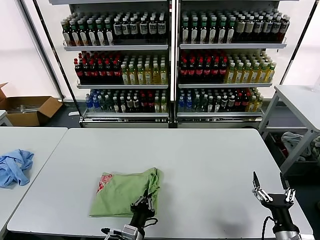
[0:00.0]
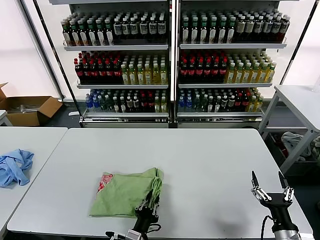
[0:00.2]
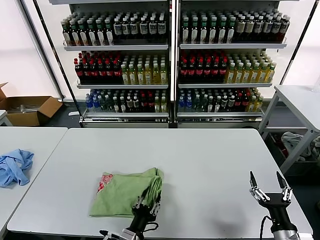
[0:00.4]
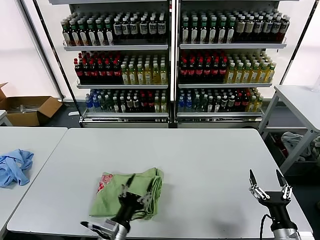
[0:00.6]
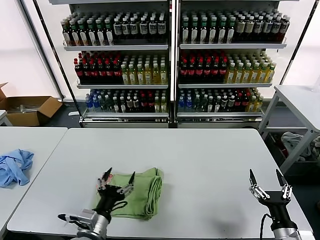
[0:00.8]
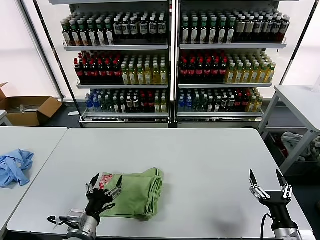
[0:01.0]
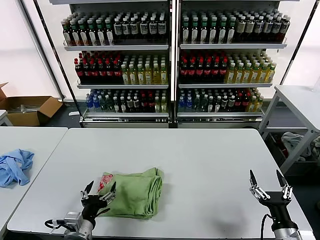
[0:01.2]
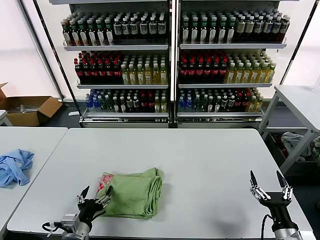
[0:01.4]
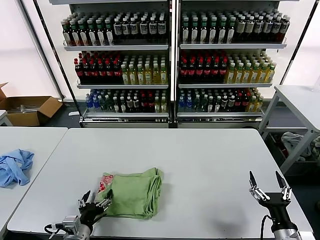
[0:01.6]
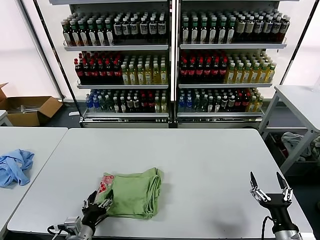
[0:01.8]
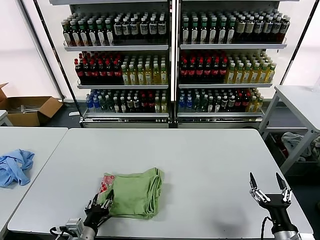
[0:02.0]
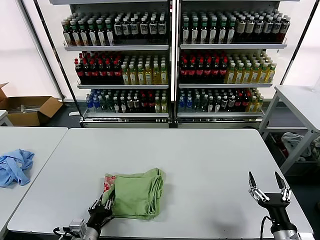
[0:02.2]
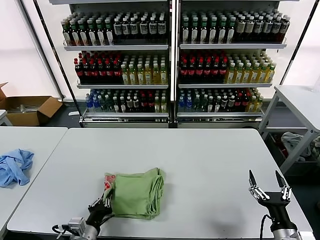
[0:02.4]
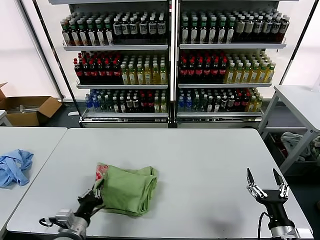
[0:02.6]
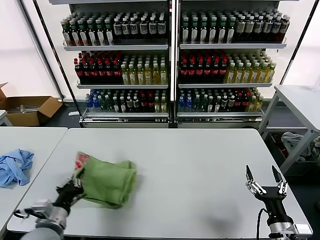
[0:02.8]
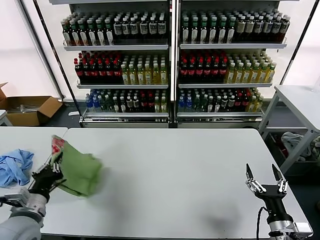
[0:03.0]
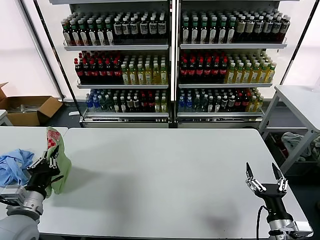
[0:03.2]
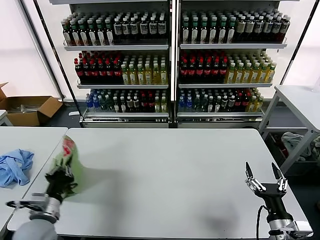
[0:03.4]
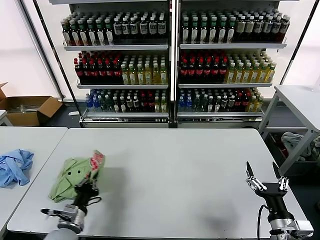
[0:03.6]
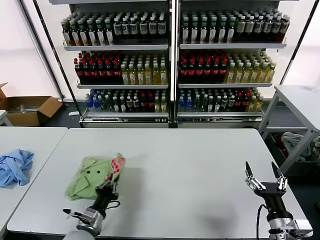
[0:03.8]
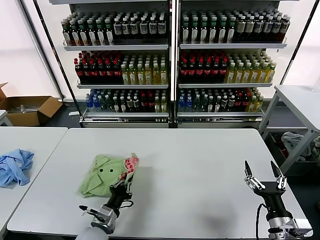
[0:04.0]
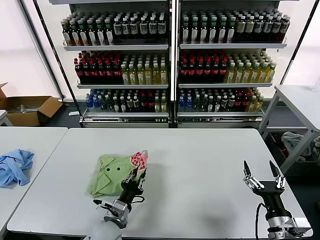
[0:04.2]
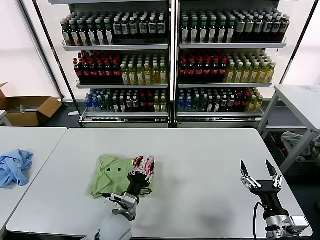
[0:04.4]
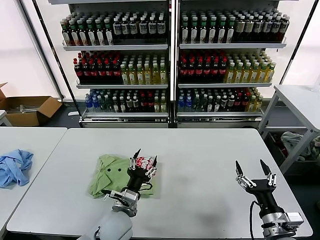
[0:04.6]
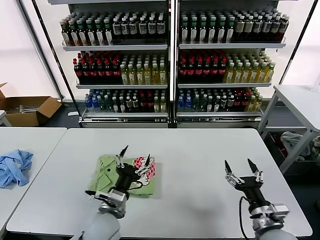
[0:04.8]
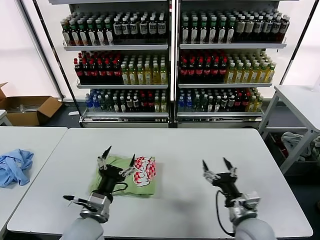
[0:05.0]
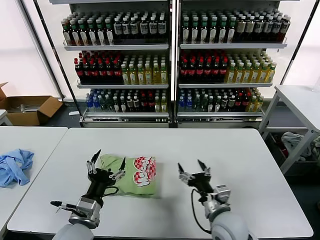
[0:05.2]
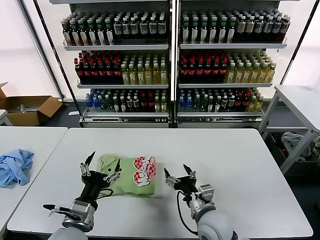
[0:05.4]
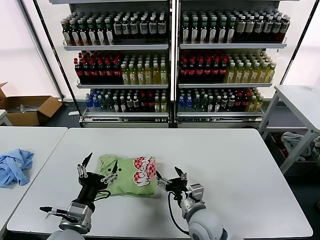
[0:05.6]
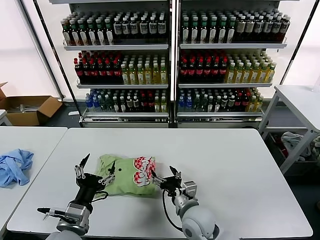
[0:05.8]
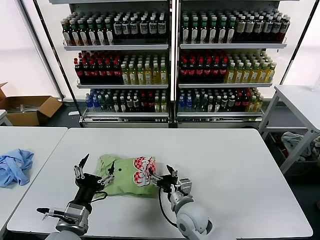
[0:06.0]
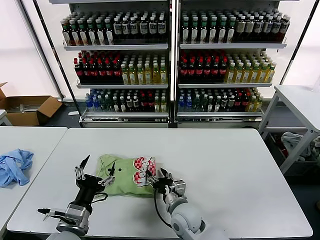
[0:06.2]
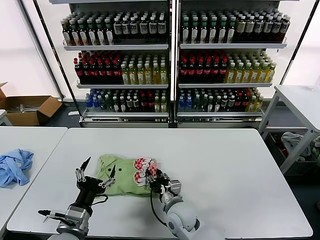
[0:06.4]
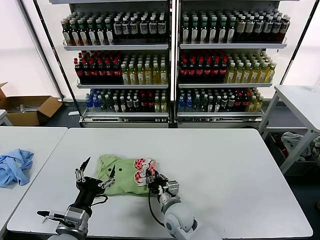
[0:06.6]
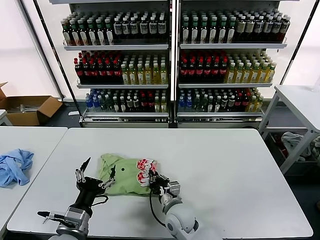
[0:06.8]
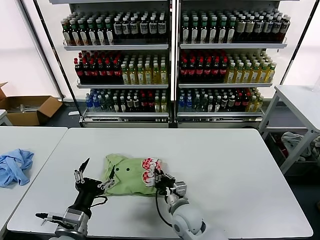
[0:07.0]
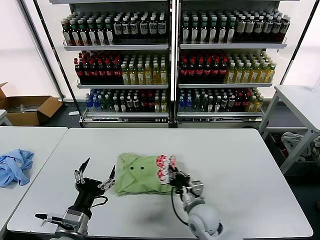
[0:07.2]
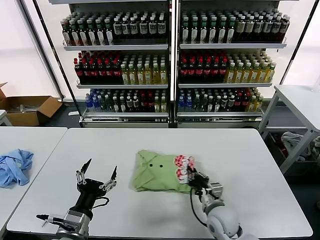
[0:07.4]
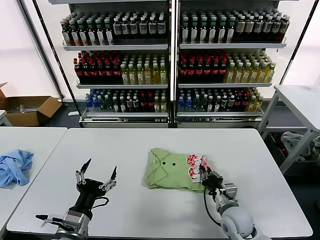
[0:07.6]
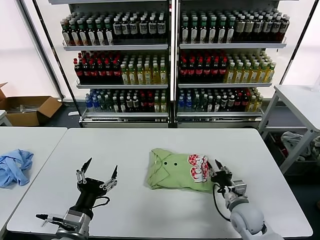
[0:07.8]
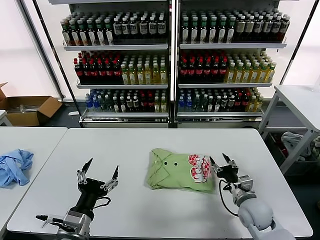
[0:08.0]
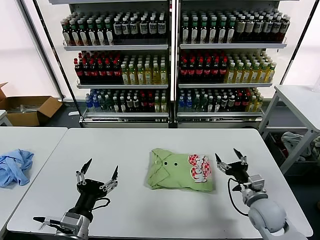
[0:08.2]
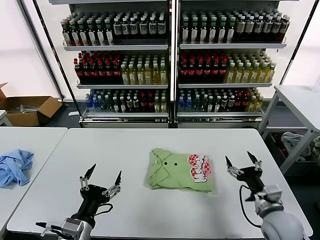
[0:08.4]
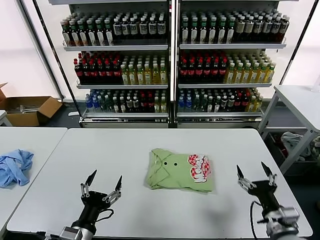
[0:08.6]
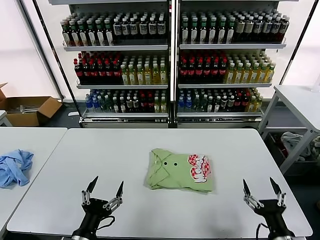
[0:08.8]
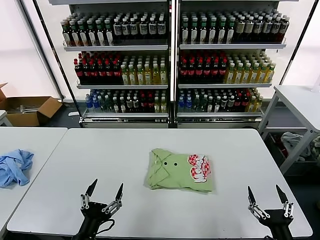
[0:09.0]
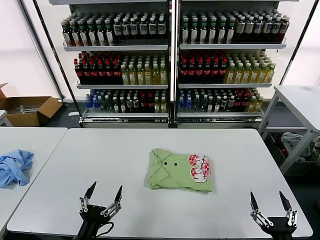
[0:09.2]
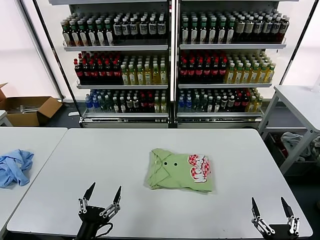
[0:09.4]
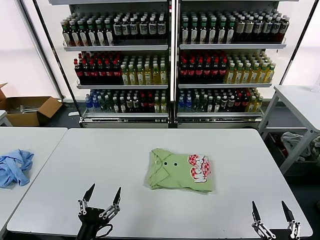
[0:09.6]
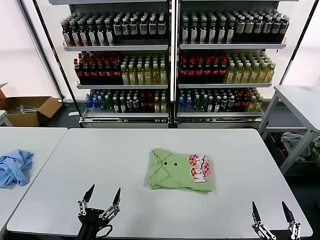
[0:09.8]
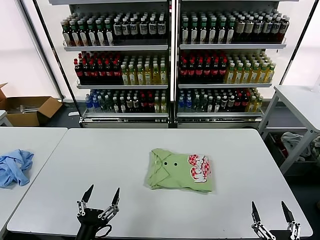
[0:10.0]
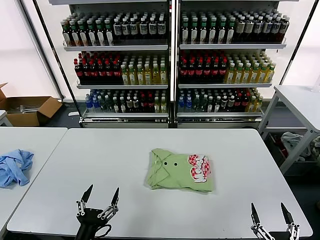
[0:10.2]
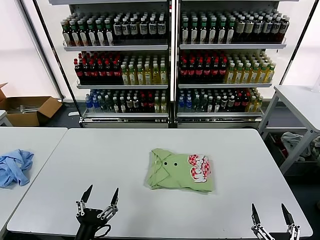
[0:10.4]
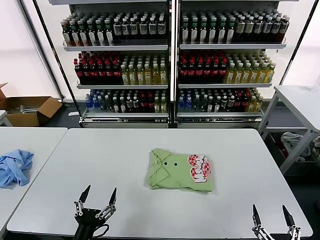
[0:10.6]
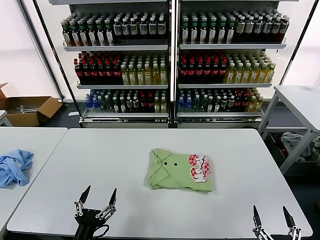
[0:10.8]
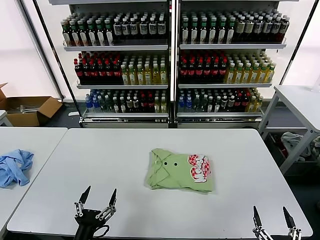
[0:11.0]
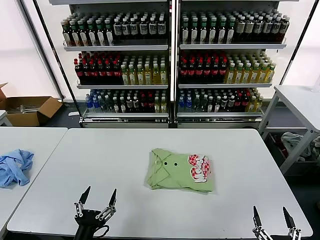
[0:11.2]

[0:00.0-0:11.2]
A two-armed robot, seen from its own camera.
Task of the whole recording: fold and organize the clothes.
Step, 0:00.6 to 0:04.4: Flip the folded clothes over with left gripper.
Step, 0:04.6 to 0:07.8: Drag the clothes to the center of the table.
0:00.0 to 0:01.6: The left gripper heads to the left, covering about 15 cm, and opens.
0:01.6 to 0:03.2: The left gripper moves upward and to the left, approximately 15 cm, and closes its fingers.
0:03.2 to 0:04.8: The left gripper is displaced to the right by approximately 20 cm, and opens its fingers.
0:04.8 to 0:06.4: The right gripper shifts some 25 cm to the left and forward, and closes its fingers, while the left gripper moves to the left and backward, roughly 10 cm.
0:06.4 to 0:08.0: The right gripper shifts approximately 25 cm to the right, and closes and opens again.
0:08.0 to 0:09.6: The left gripper is displaced backward and downward by some 10 cm. The right gripper travels backward by roughly 25 cm, and opens up.
0:09.6 to 0:11.2: The grippers make only small movements.

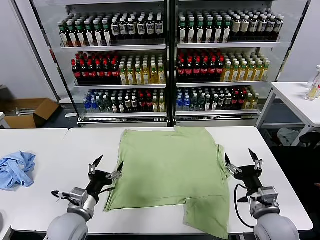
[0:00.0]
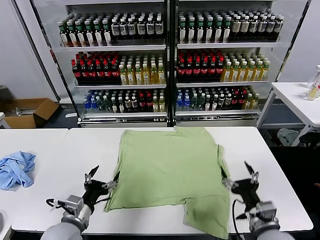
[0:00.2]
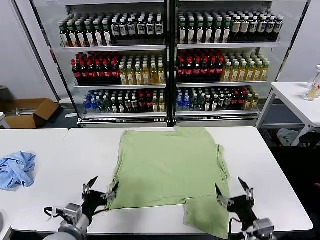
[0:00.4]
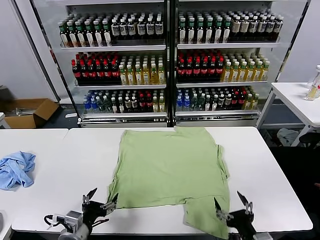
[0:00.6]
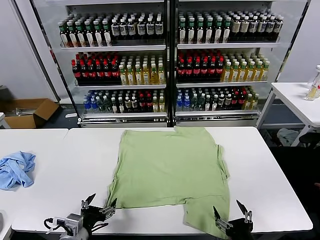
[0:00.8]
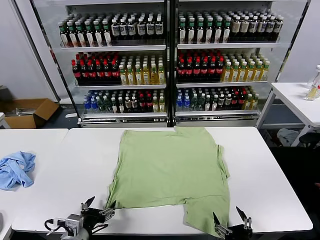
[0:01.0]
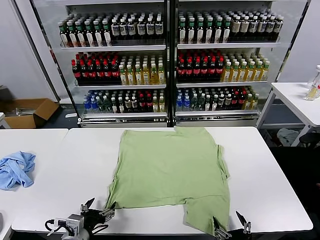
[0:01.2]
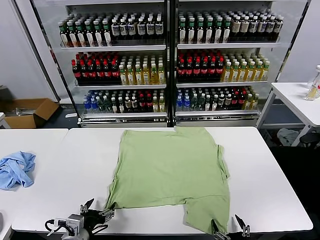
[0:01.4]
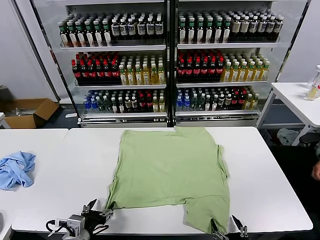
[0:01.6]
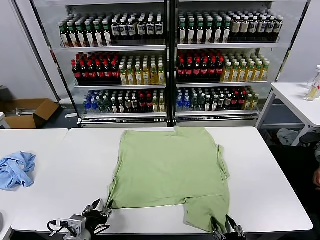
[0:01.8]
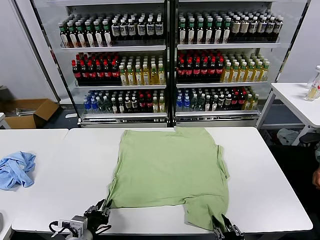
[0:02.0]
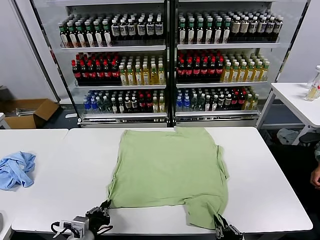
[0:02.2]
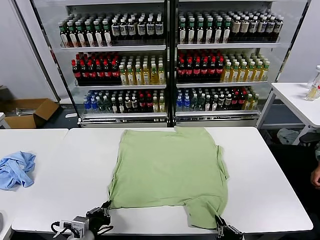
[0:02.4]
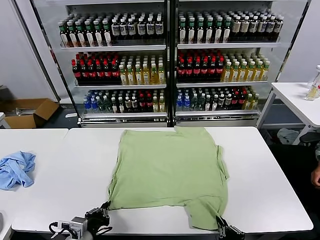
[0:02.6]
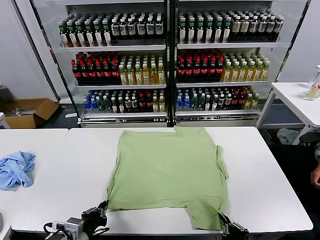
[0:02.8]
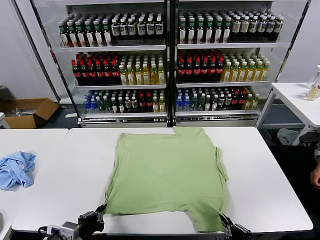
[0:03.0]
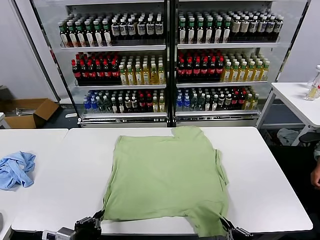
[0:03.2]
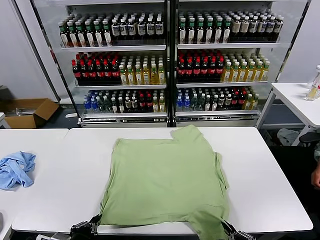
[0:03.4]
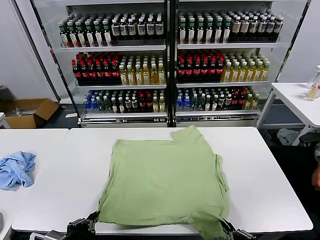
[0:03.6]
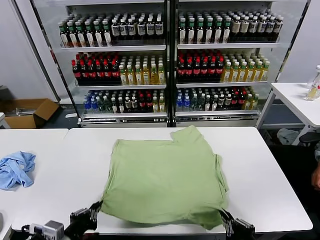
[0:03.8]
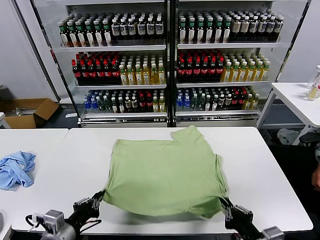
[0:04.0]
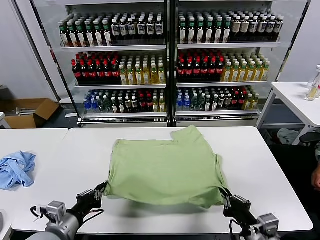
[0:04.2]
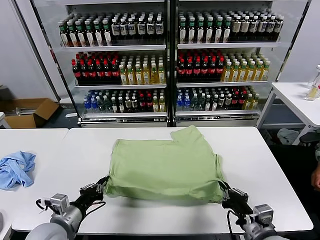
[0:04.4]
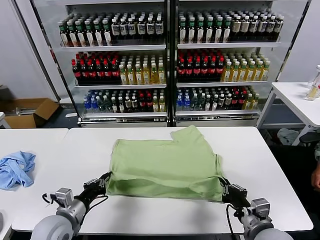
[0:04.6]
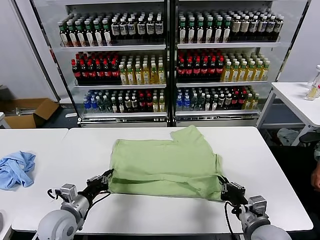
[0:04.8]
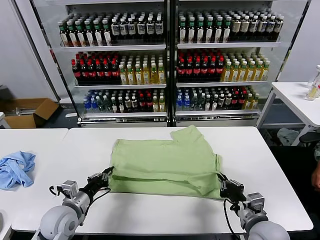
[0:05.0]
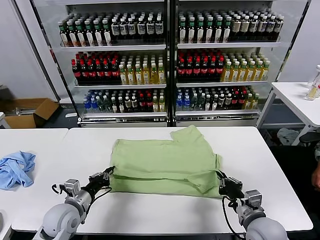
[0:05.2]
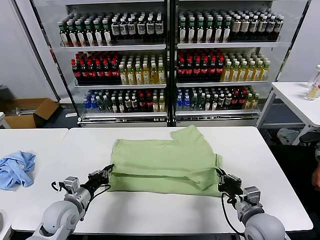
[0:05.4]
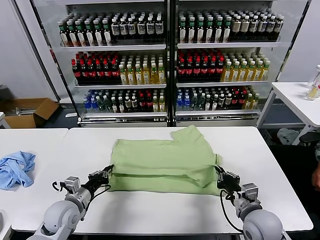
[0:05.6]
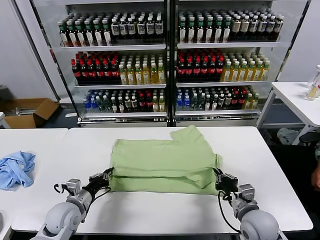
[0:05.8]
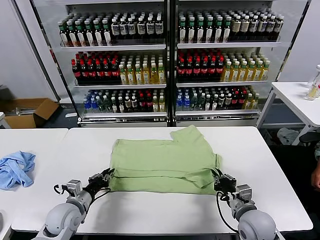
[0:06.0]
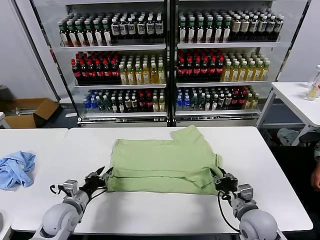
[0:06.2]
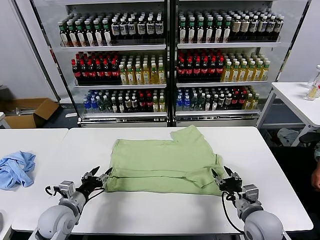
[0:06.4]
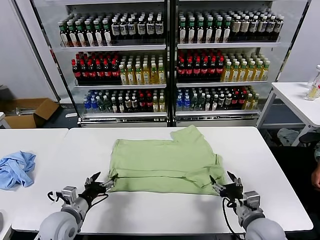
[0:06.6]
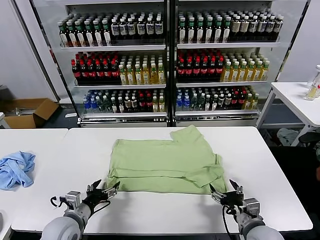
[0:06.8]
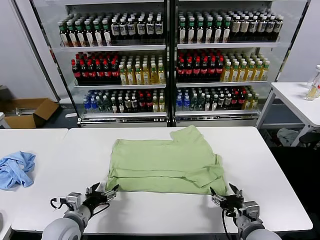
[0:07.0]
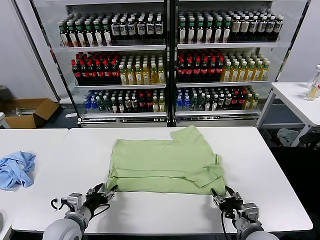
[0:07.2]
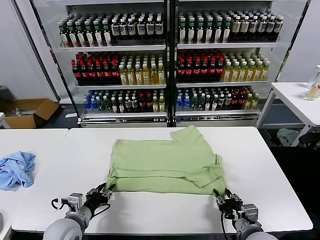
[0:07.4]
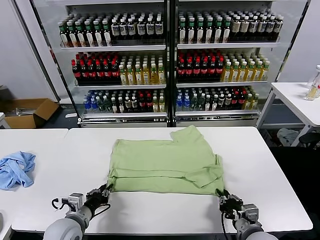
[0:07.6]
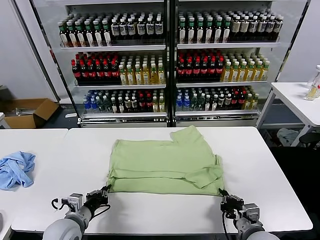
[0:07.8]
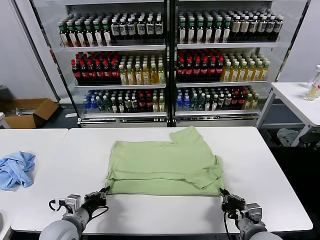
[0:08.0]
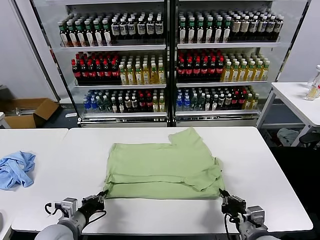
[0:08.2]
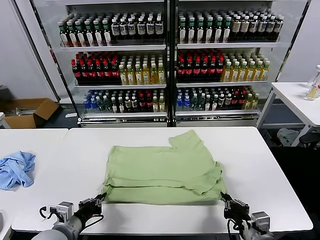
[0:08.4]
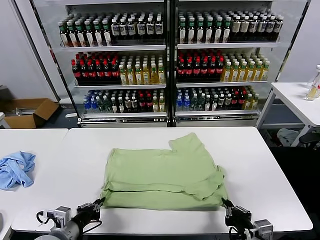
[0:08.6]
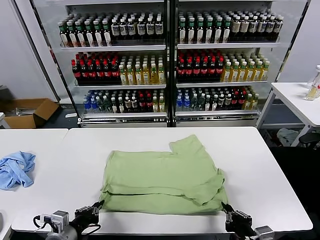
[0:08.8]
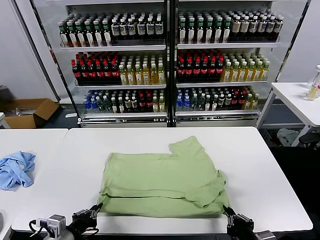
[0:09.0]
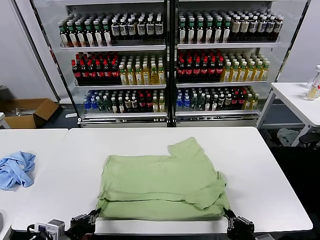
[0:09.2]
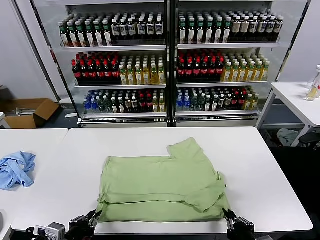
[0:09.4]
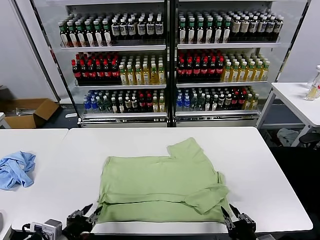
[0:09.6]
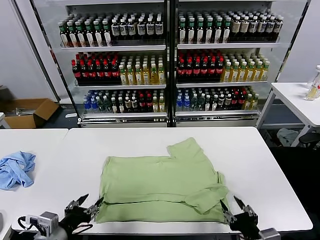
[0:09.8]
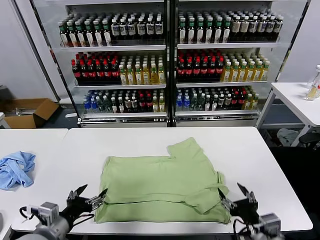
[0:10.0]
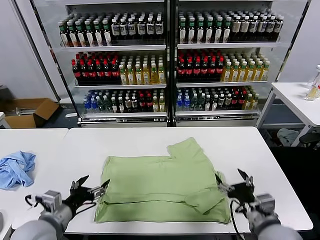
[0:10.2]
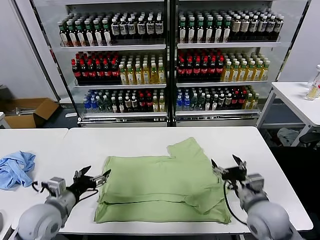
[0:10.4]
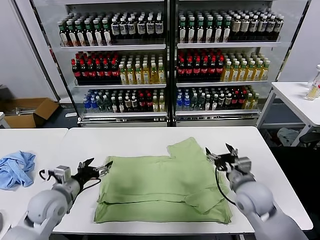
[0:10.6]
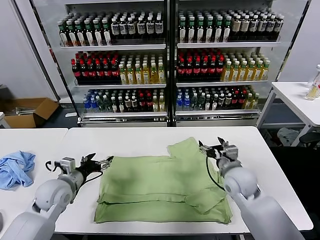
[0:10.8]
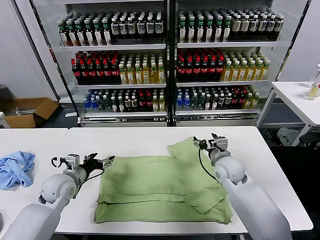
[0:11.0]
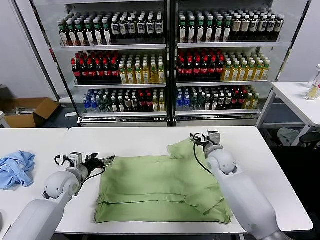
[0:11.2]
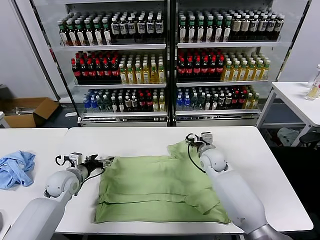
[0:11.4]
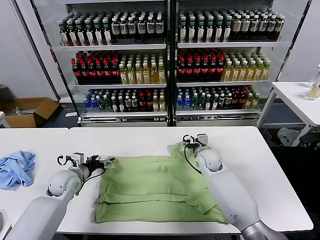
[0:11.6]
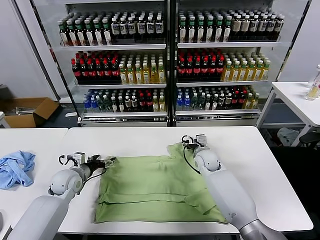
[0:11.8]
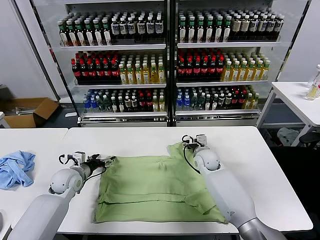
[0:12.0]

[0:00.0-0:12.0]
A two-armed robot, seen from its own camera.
Task of the whole recording: fold and organize the clothes.
Step, 0:00.0 to 0:02.8: use both grippers simultaneously to clamp the lower edge of the clothing fabric.
Step, 0:03.0 to 0:06.4: use both grippers to drag the lower edge of the fabric forward and fold it over the upper edge.
Step, 0:06.6 to 0:09.6: Drag the clothes downward with both gripper.
0:01.6 to 0:03.0: The right gripper goes approximately 5 cm upward, and closes its fingers, while the left gripper closes up.
0:03.0 to 0:04.4: Both grippers travel together forward, some 10 cm.
0:04.4 to 0:06.0: The grippers both shift forward and downward by some 10 cm.
0:06.0 to 0:07.6: The grippers both shift backward by approximately 5 cm. The right gripper opens and closes again. The left gripper opens, then closes once more.
0:07.6 to 0:09.0: The two grippers go roughly 10 cm backward.
0:09.0 to 0:10.4: Both grippers travel together forward, about 15 cm. The right gripper opens. Meanwhile the left gripper opens its fingers.
0:10.4 to 0:12.0: The right gripper goes approximately 25 cm forward and to the left; the left gripper is displaced forward and downward by roughly 15 cm.
